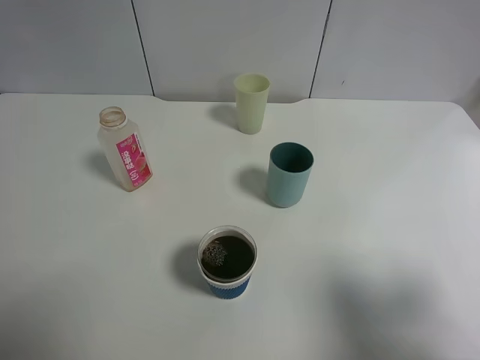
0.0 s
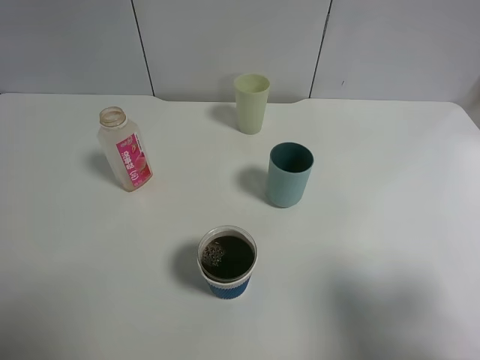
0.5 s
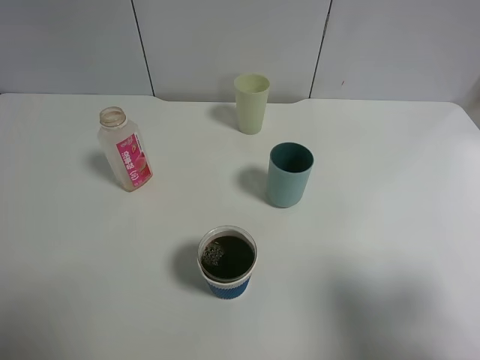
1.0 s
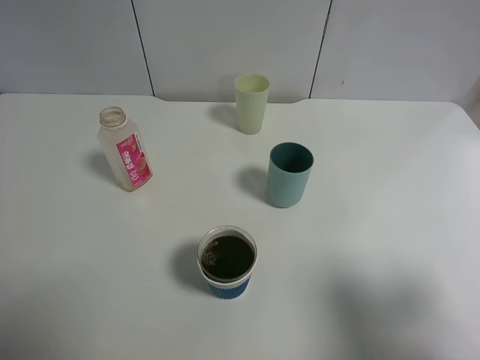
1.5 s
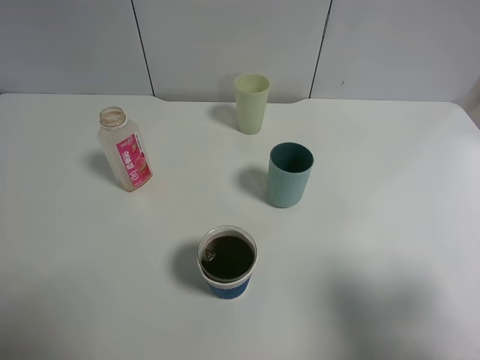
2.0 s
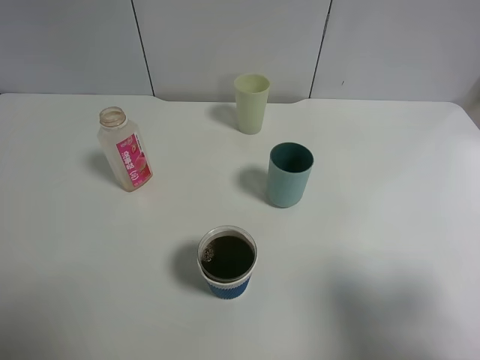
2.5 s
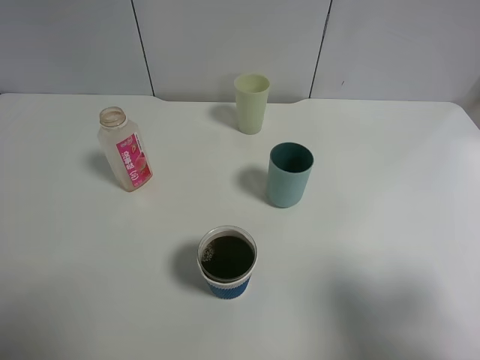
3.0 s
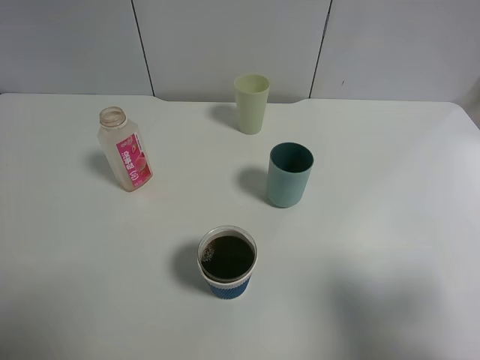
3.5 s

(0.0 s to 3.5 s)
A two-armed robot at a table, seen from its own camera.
Task of the whole recording: use a gripper to hold the bottle of the drink and pour it into a random cup.
2.0 s - 3.5 s: Neither gripper changes place.

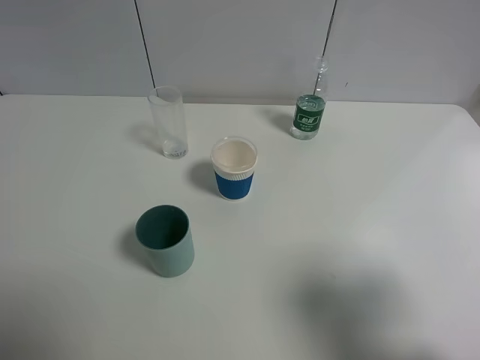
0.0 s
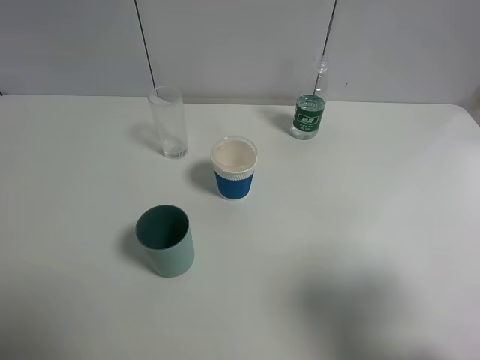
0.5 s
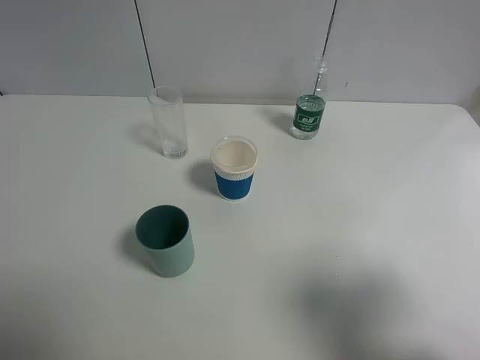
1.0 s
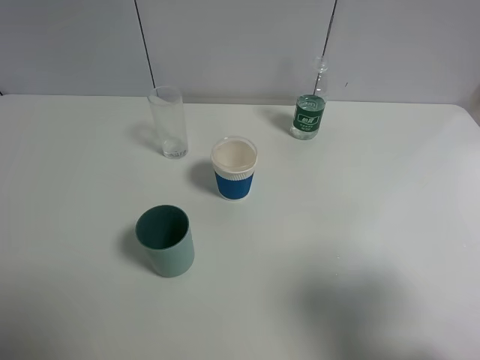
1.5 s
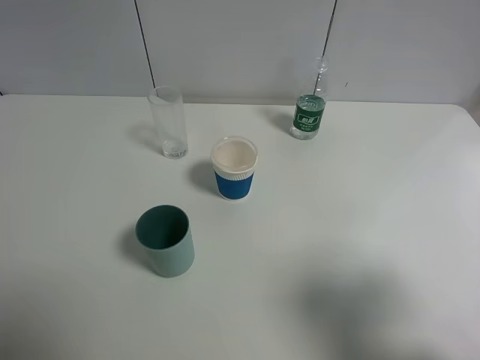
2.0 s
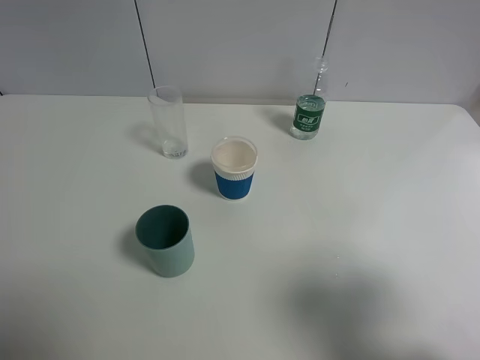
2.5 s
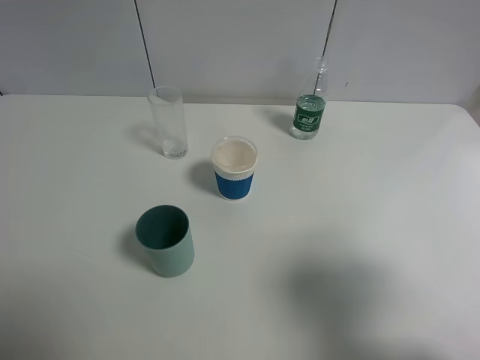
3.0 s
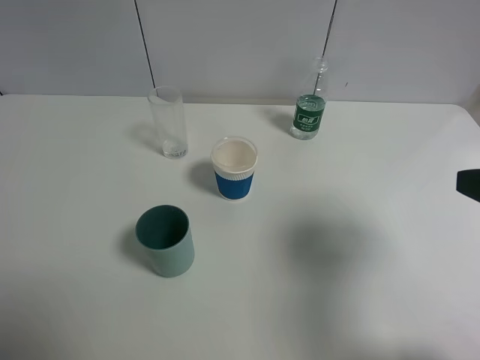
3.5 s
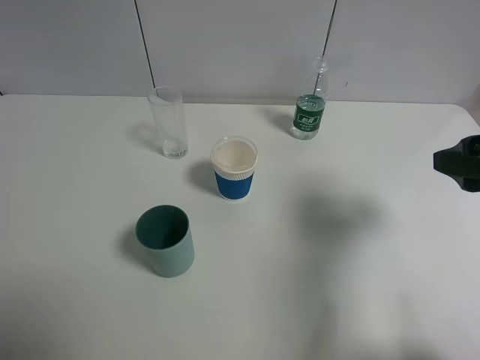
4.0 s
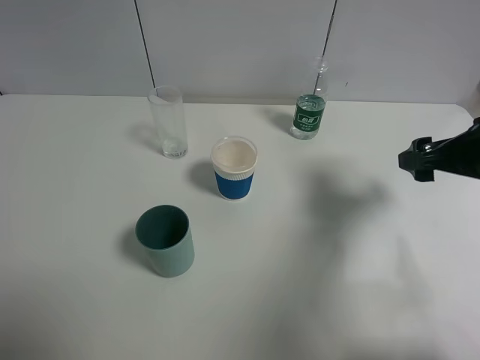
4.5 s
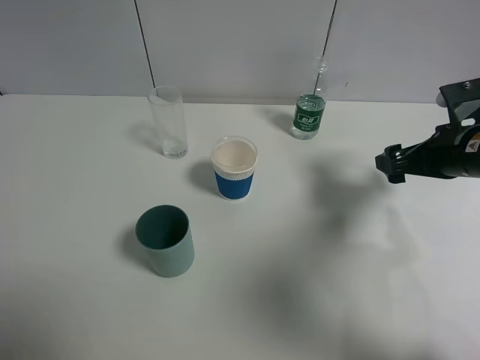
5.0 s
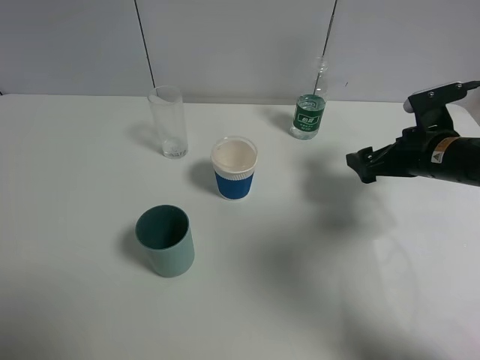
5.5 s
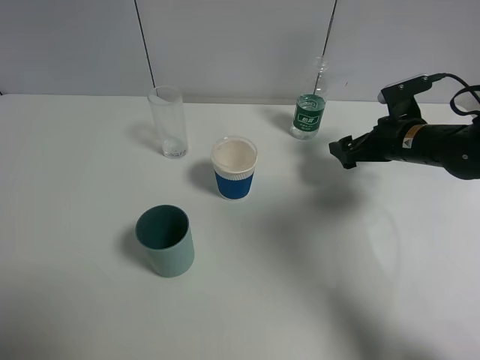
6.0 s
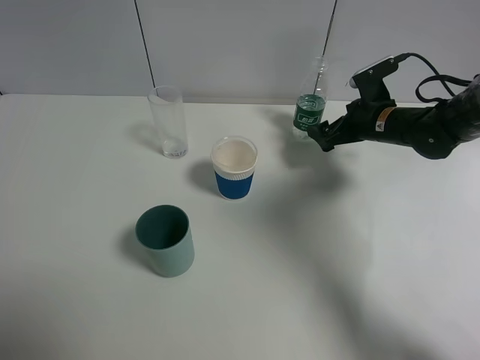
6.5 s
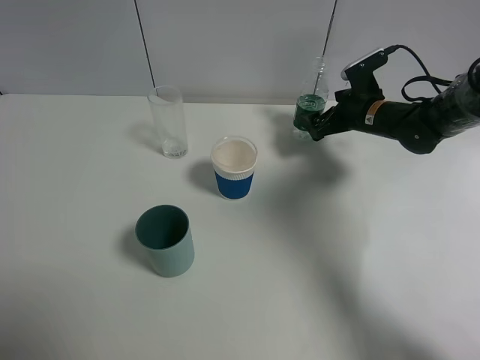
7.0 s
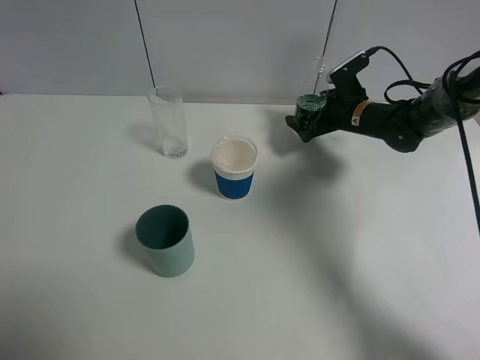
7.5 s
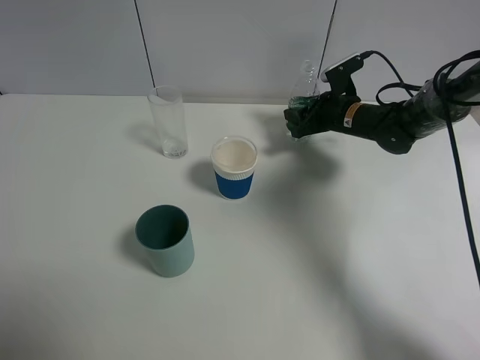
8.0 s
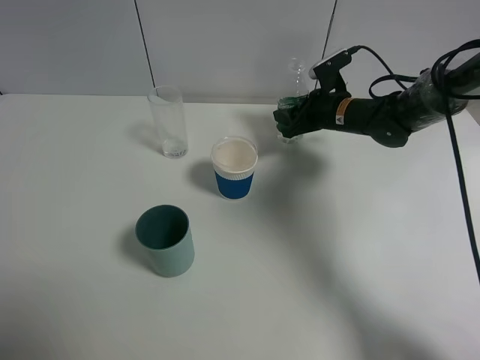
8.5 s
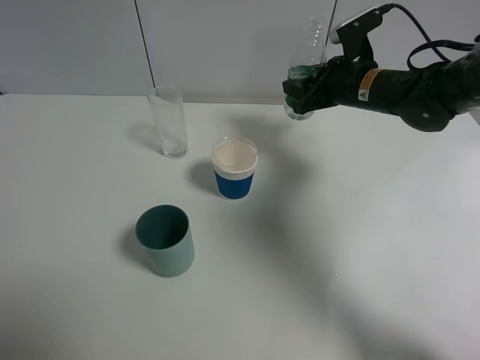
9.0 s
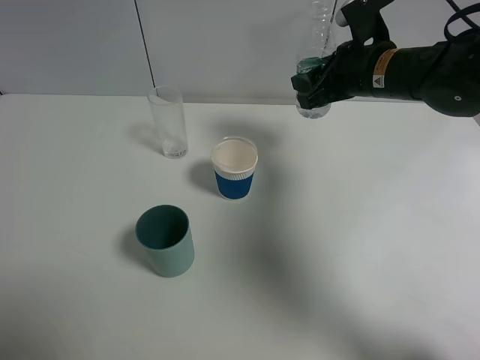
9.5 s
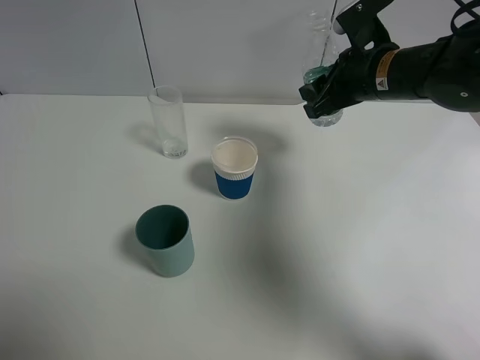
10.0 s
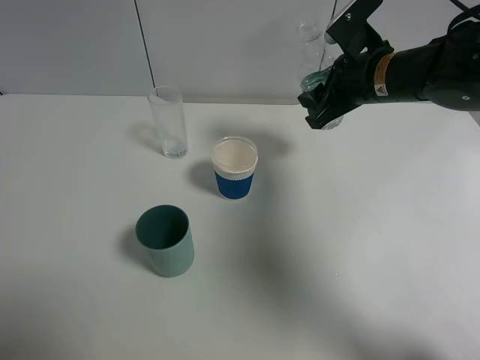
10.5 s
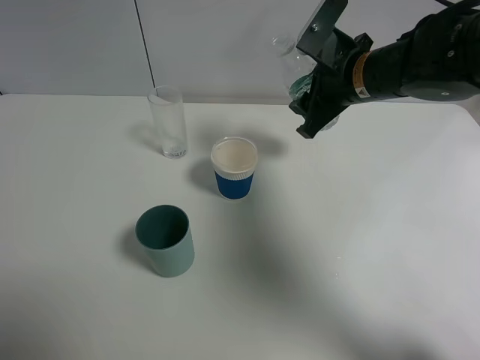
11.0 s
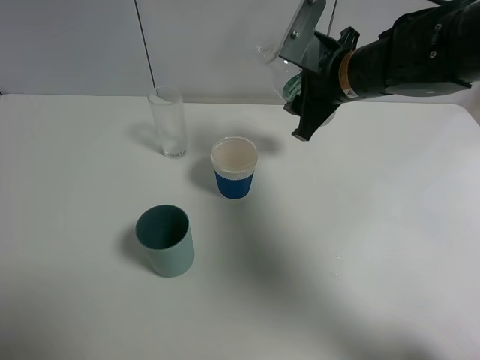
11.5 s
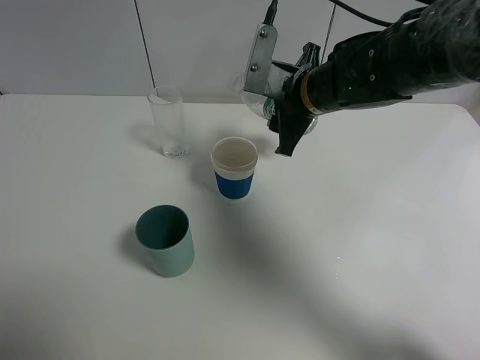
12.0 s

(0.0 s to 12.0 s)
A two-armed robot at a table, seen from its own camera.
Task of the whole recording: use a gripper to hold the bottle of the drink and pour it into a random cup.
Step, 0.0 s - 8.0 s: Grasp the mineral water bottle with the right gripper.
0.0 s - 2.0 s: The two grippers keep their place.
2.0 s - 4.0 s: The right gripper shifts about 15 cm forward.
4.0 s - 6.0 s: The right gripper moves forward and downward, roughly 25 cm.
6.0 s - 8.0 s: The right gripper heads forward and to the left, covering about 10 cm, and closes up.
8.0 s - 10.0 s: The right gripper heads upward and backward, covering some 15 cm.
10.0 s - 12.0 s: The right gripper is displaced to the left by roughly 10 cm.

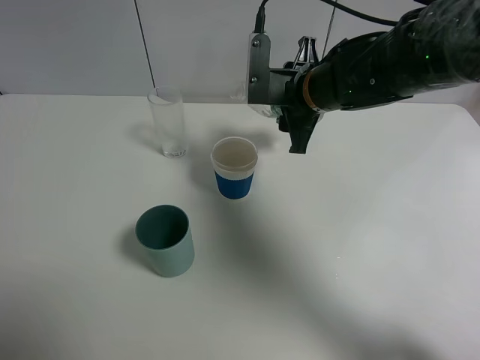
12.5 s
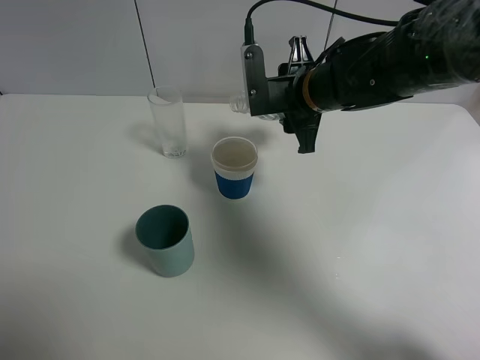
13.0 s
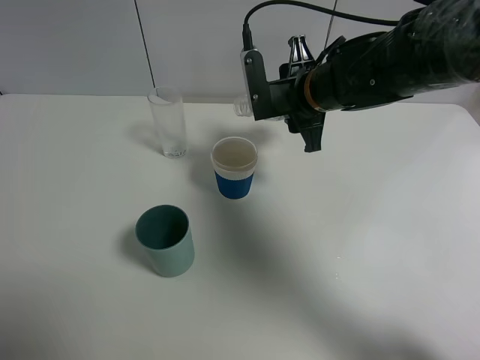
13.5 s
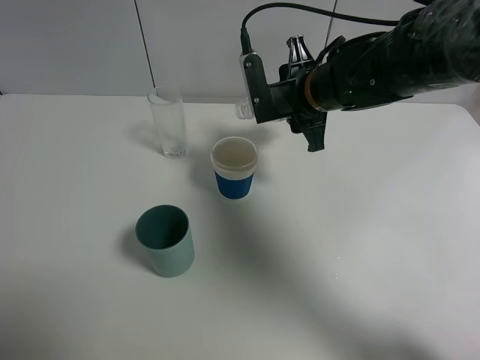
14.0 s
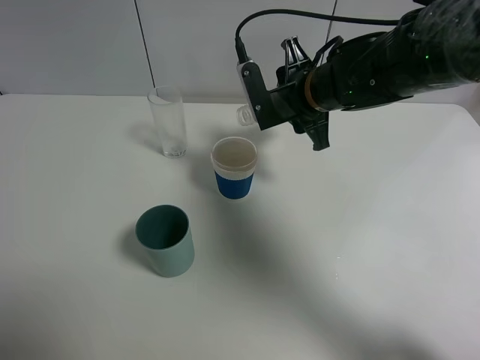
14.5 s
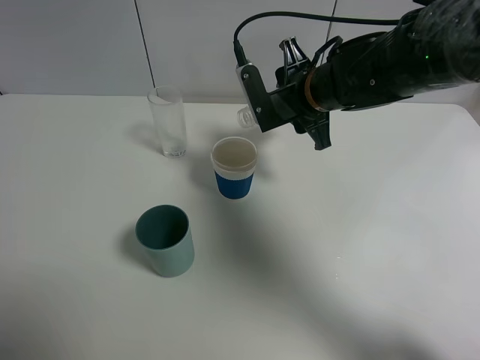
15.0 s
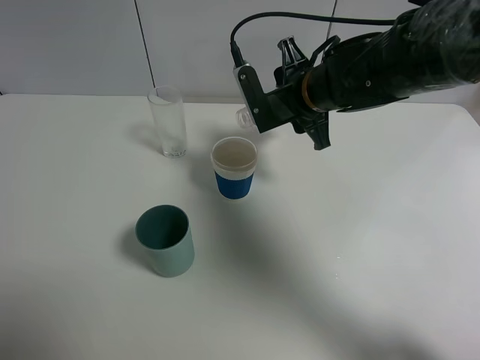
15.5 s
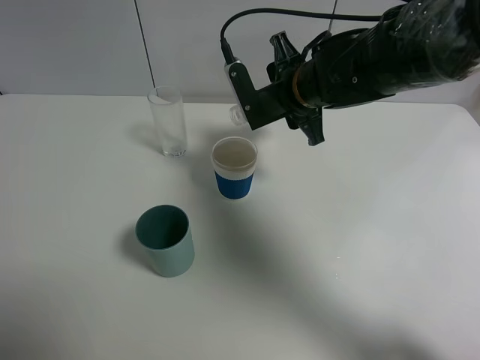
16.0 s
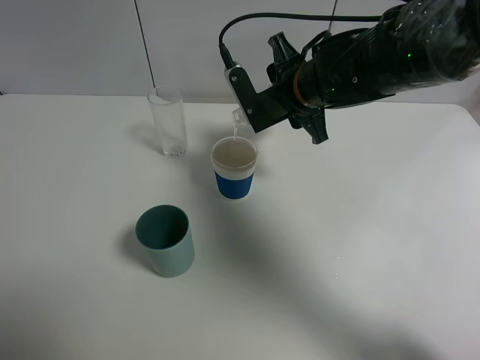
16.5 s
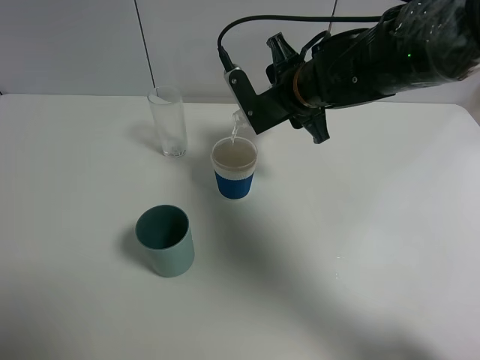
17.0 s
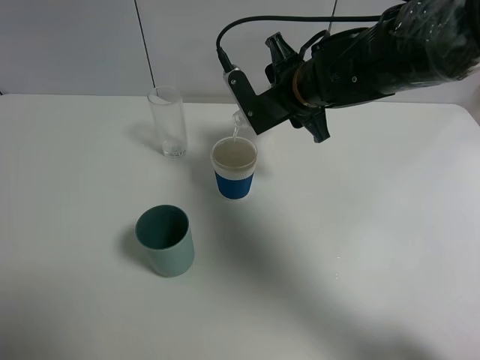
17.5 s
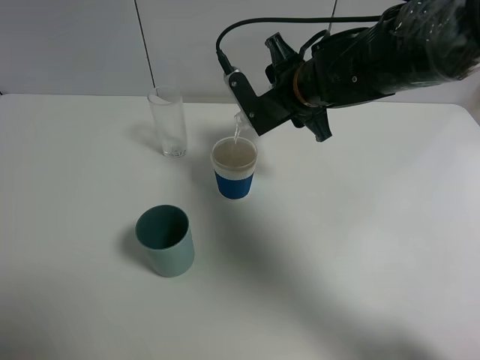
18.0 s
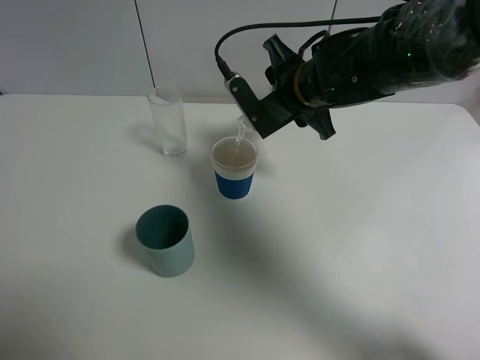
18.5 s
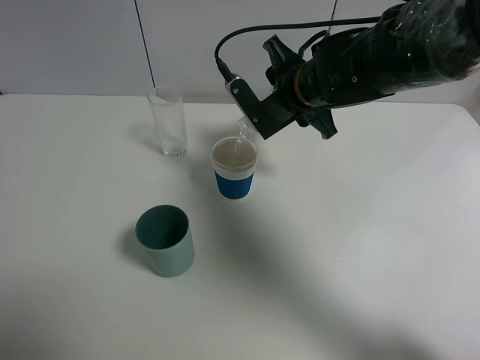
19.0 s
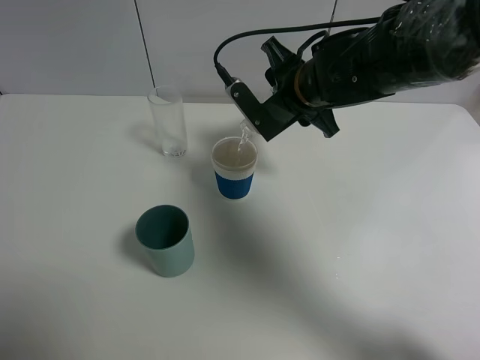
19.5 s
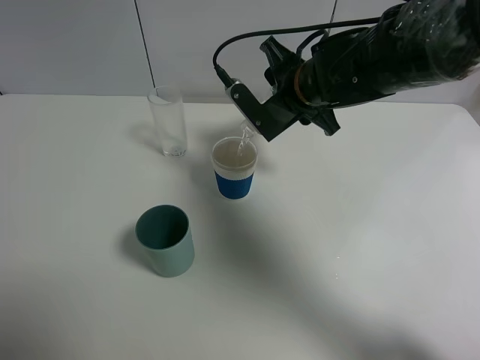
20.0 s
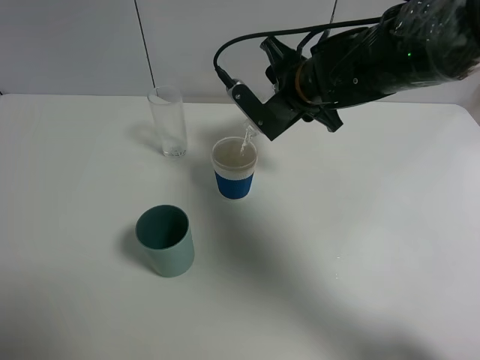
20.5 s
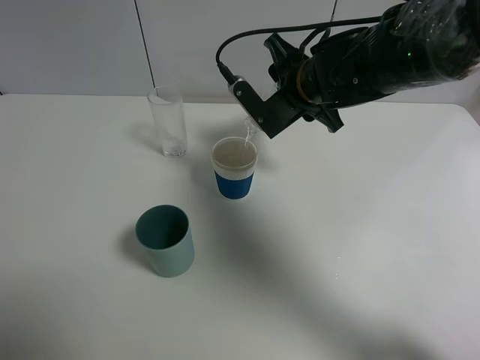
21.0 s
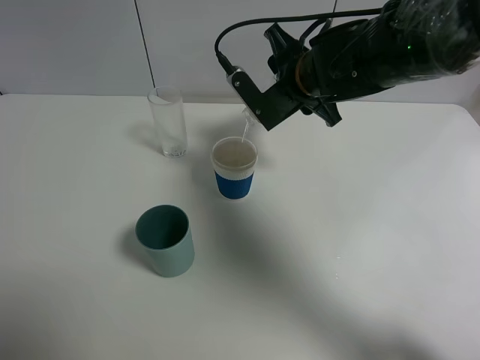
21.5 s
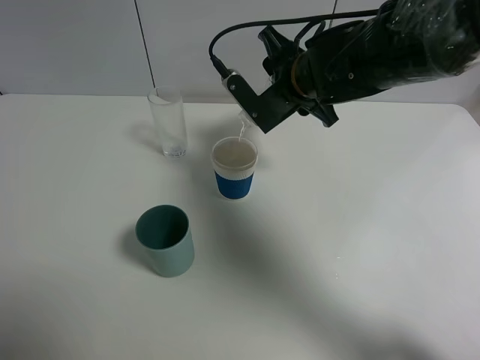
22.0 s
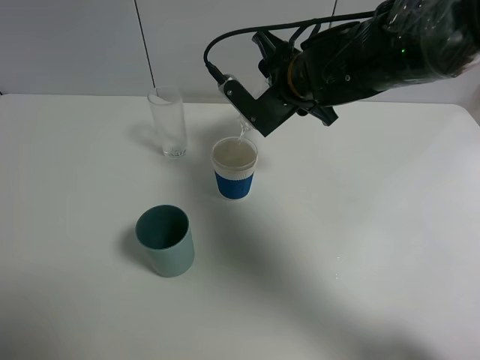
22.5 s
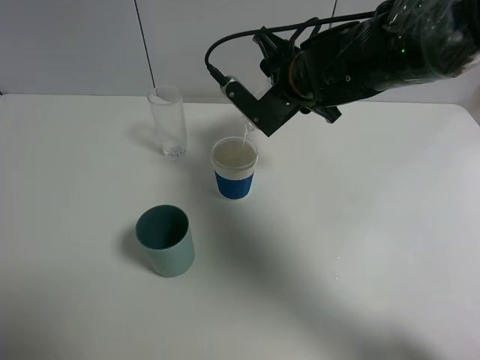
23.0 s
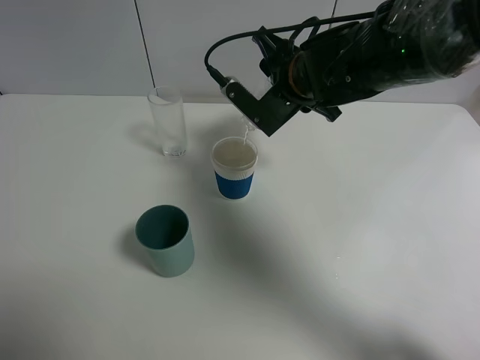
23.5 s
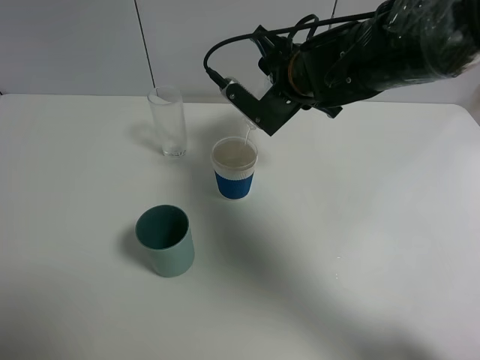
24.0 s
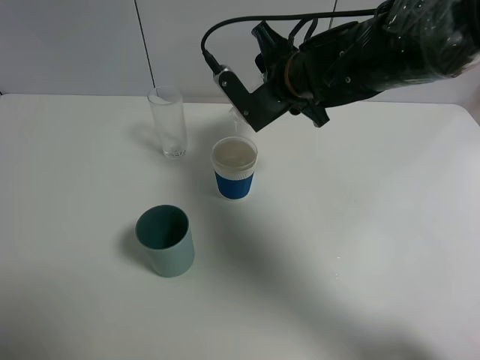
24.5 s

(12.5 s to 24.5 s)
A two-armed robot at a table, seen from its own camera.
Task of the whole recording: use a gripper to hold the bottle of the drink and pour it into a random cup.
14.5 s - 18.5 s: There are only small adjustments of the grippers.
18.5 s - 20.5 s: The grippers make only small movements.
20.5 s - 22.5 s: Neither gripper changes place.
22.5 s - 24.5 s: The grippers move only a little.
